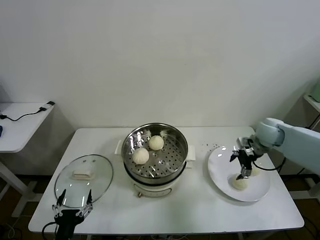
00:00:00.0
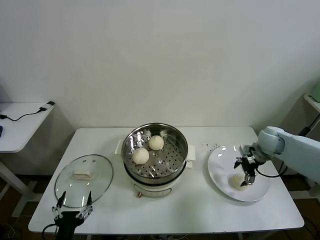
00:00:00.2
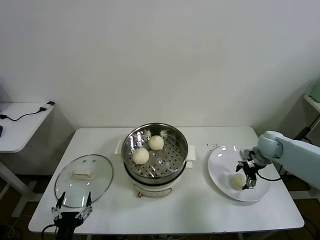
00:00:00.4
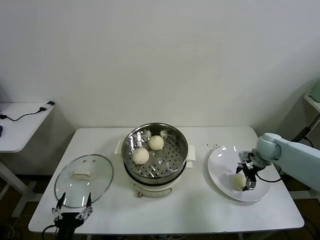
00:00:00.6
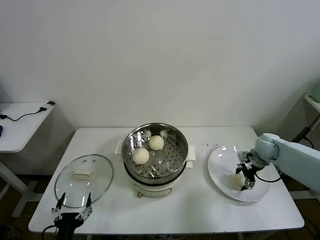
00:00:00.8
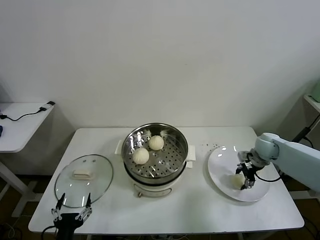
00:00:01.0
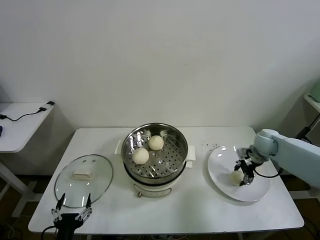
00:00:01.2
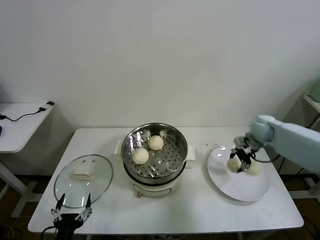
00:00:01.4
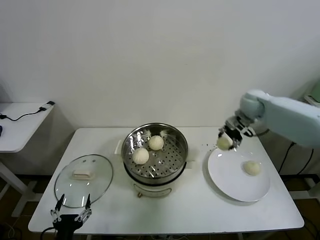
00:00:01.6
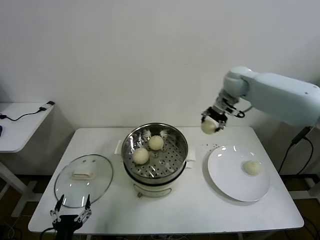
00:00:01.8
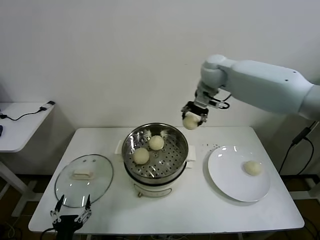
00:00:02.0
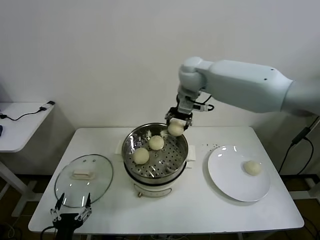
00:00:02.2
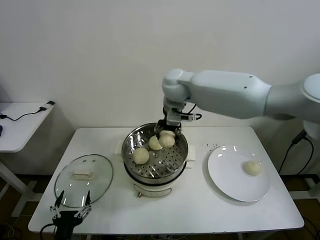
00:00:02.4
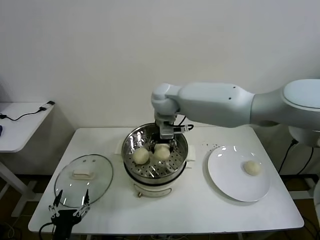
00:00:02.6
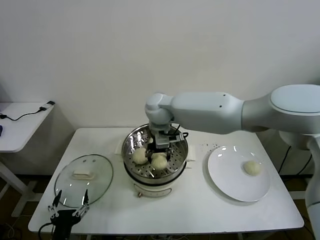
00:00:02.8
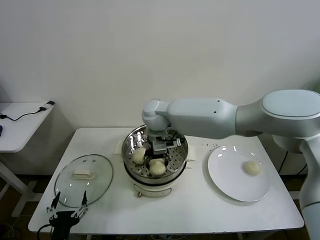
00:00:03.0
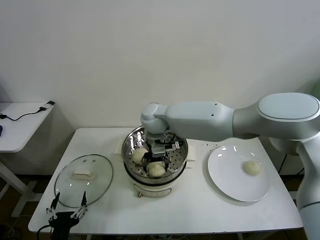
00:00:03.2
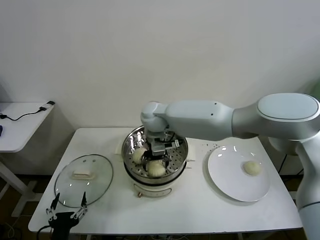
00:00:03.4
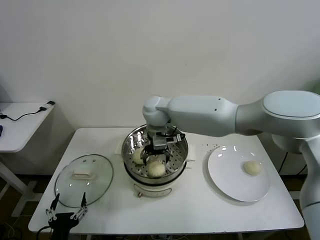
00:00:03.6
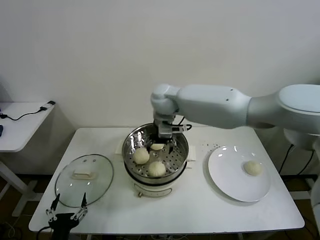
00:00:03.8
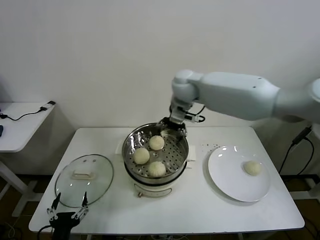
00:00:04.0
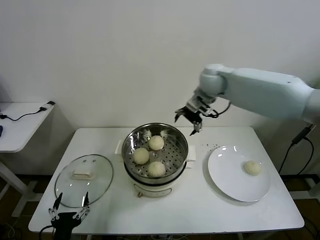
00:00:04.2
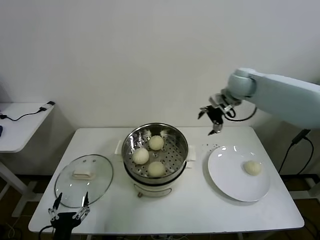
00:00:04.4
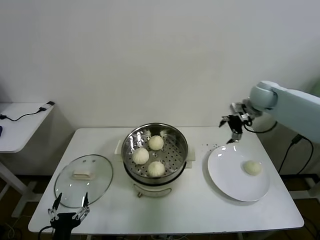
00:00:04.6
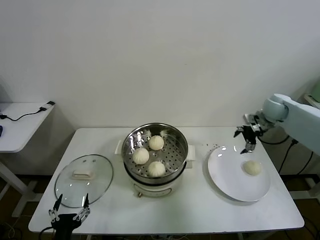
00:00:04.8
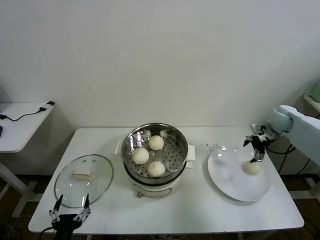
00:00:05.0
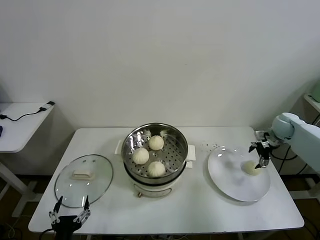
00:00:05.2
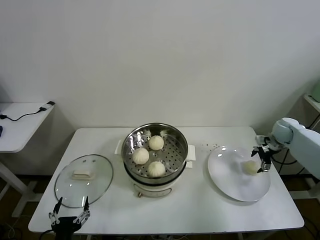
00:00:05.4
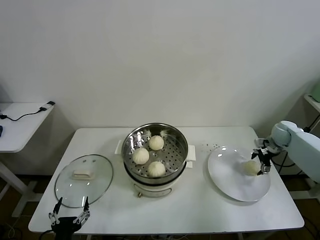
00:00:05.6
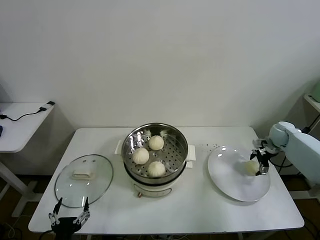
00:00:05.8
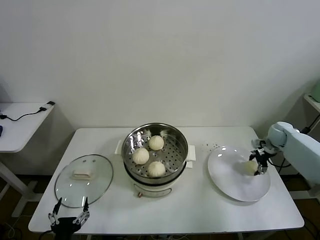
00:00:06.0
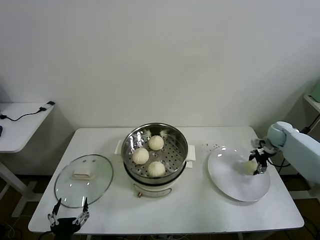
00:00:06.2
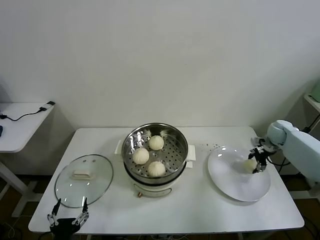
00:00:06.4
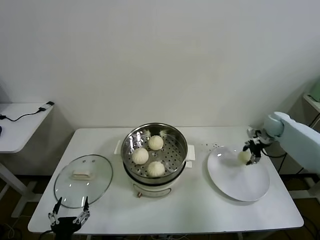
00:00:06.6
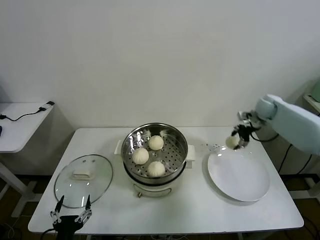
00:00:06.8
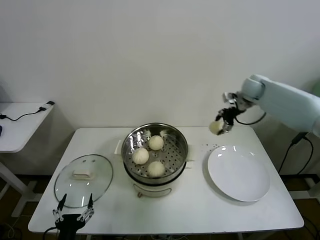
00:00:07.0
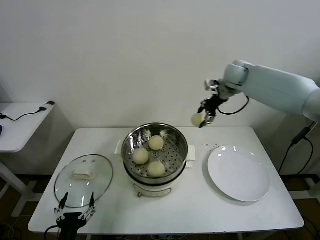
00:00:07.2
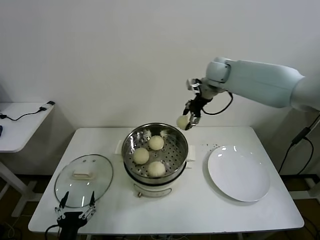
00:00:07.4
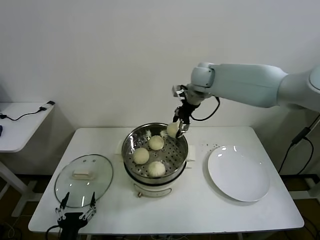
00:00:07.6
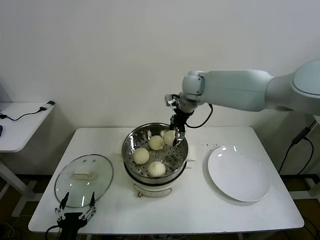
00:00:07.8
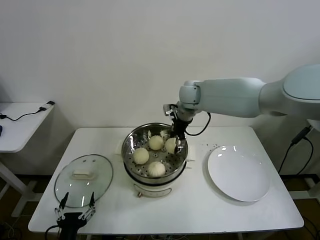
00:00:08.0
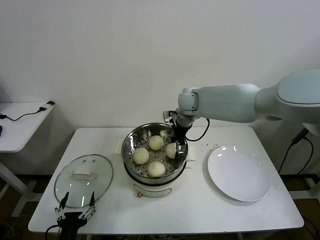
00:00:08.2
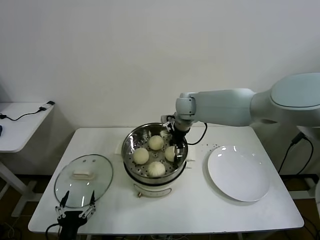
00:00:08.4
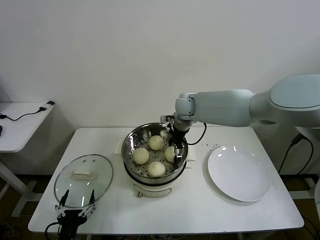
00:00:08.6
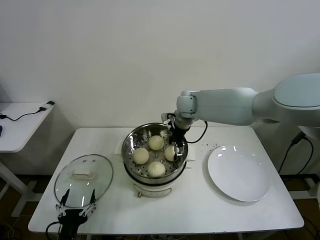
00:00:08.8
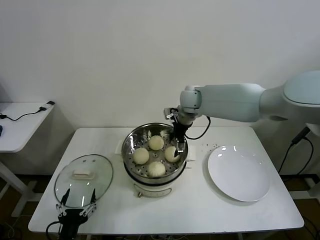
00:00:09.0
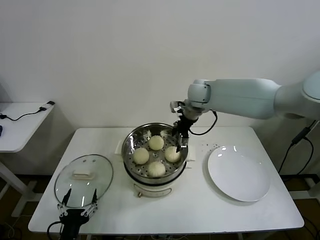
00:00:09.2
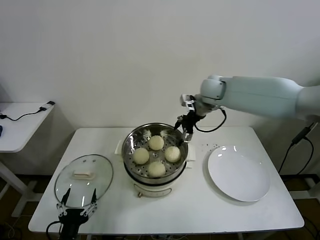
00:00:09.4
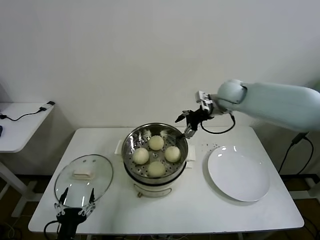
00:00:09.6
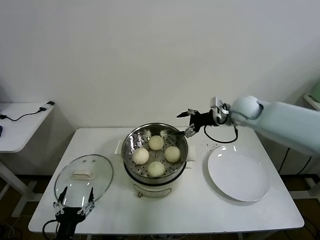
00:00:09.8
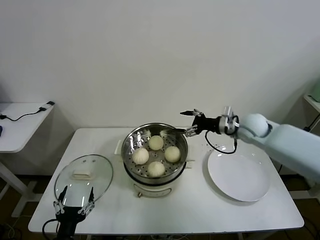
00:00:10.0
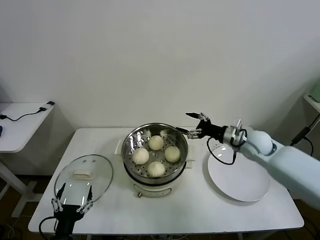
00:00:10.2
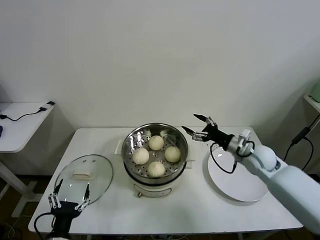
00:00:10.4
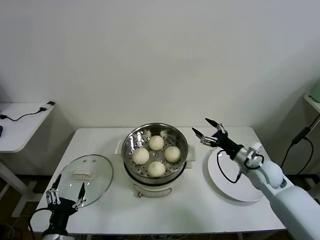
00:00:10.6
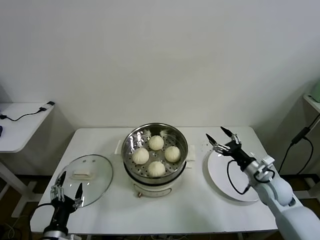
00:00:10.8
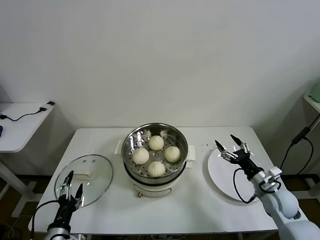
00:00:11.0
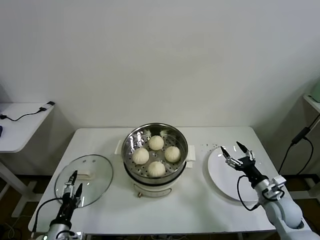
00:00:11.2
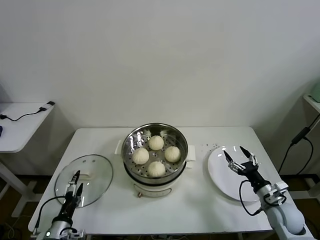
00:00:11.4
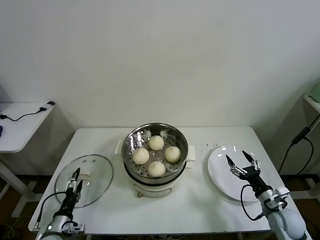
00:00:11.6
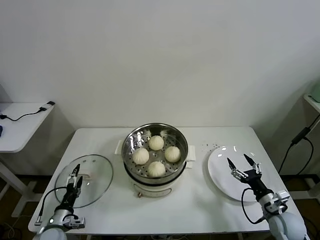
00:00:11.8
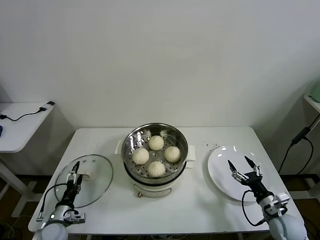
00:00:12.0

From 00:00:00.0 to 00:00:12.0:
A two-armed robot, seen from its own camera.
Task of the whole recording: take steamed baozi put them in steamer then cover it.
Step, from 00:00:00.0 to 00:00:01.2: Grasp the baozi in the plate with right gripper.
Step, from 00:00:01.4 to 00:00:03.4: Place the baozi on the steamer with right gripper.
Step, from 00:00:03.6 to 00:00:06.2: Grasp the baozi in the plate with right gripper.
Step, from 00:00:06.4 to 00:00:09.2: Place the baozi on the steamer with right gripper.
From 00:00:00.0 to 00:00:01.6: The right gripper shifts some 15 cm upward, forward and to the left, and closes its fingers.
From 00:00:01.6 to 00:00:03.0: The right gripper is displaced to the left by approximately 35 cm.
From 00:00:03.0 to 00:00:04.4: The right gripper goes approximately 30 cm to the right, and opens.
From 00:00:04.4 to 00:00:06.0: The right gripper travels downward and to the right by roughly 30 cm, and closes.
From 00:00:06.0 to 00:00:07.6: The right gripper moves to the left and upward, about 40 cm, and closes its fingers.
From 00:00:07.6 to 00:00:09.0: The right gripper is displaced downward by about 5 cm, and opens up.
From 00:00:09.0 to 00:00:10.4: The right gripper is displaced to the right, backward and downward by about 30 cm.
From 00:00:10.4 to 00:00:12.0: The left gripper shifts roughly 20 cm forward, downward and to the left. Meanwhile the right gripper goes roughly 25 cm backward, downward and to the right.

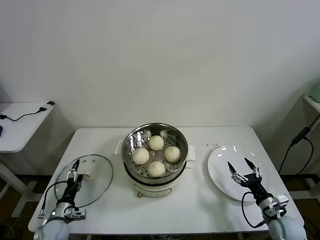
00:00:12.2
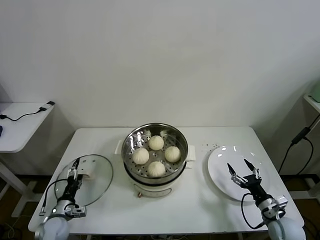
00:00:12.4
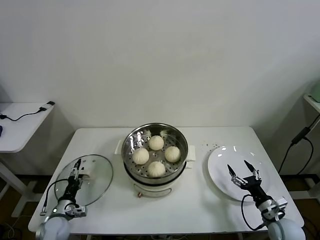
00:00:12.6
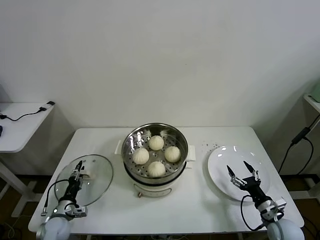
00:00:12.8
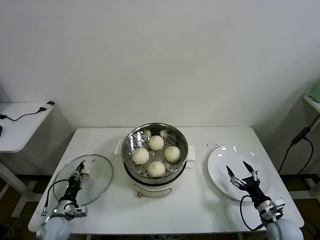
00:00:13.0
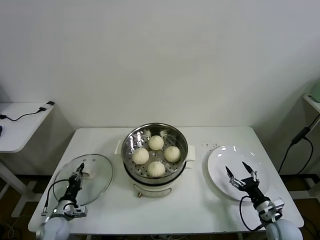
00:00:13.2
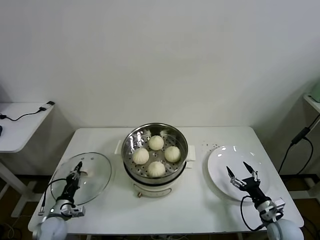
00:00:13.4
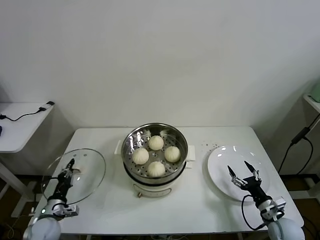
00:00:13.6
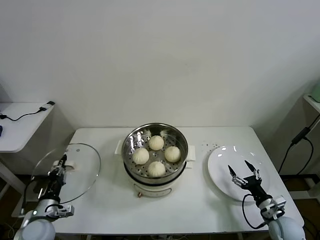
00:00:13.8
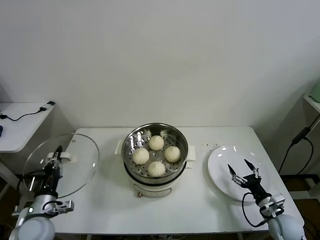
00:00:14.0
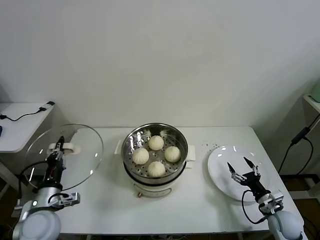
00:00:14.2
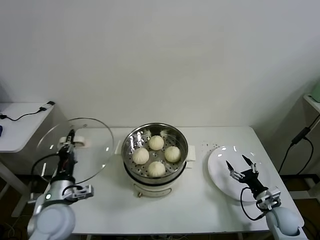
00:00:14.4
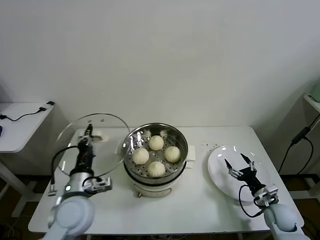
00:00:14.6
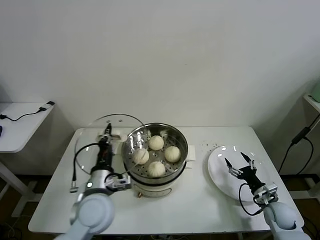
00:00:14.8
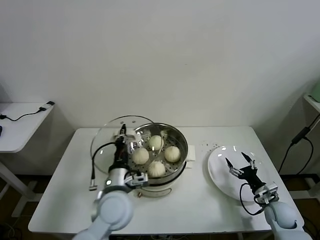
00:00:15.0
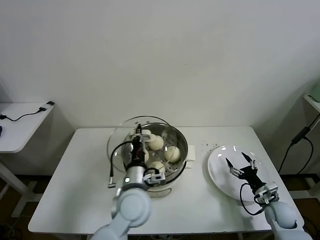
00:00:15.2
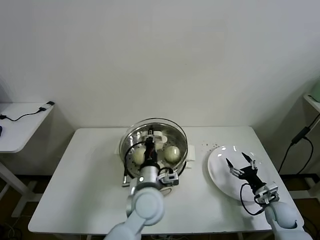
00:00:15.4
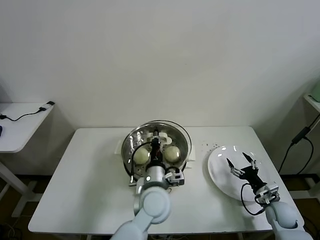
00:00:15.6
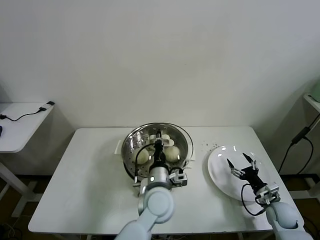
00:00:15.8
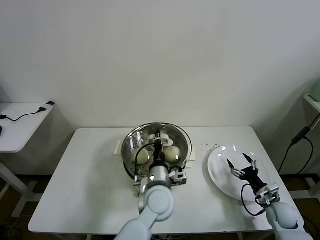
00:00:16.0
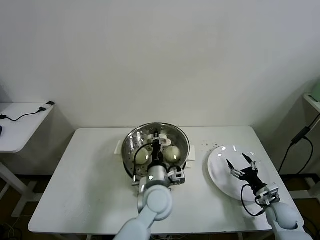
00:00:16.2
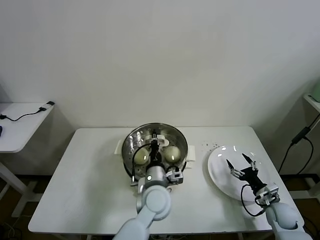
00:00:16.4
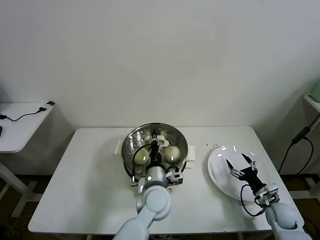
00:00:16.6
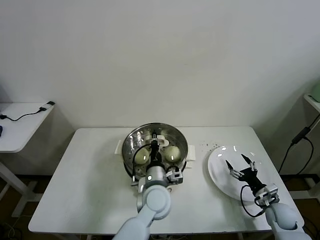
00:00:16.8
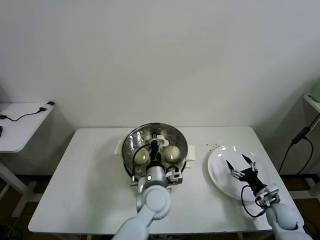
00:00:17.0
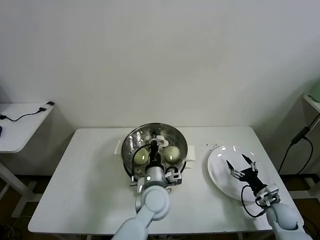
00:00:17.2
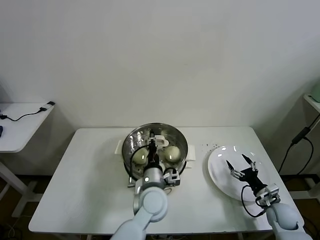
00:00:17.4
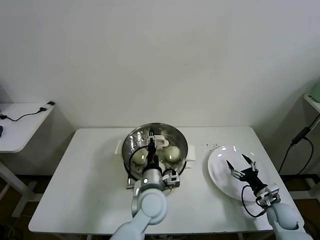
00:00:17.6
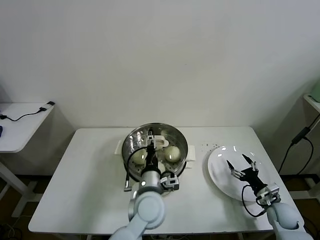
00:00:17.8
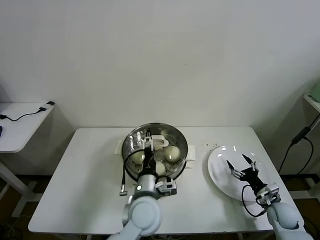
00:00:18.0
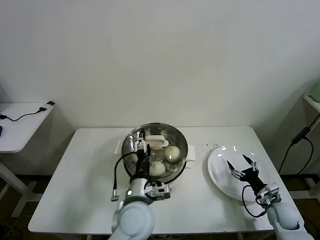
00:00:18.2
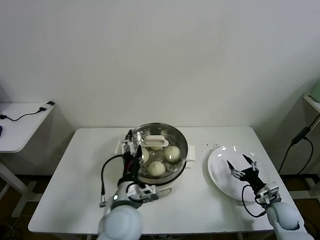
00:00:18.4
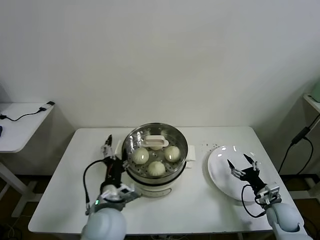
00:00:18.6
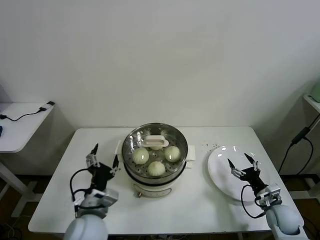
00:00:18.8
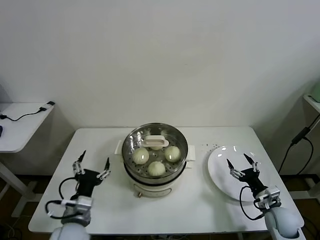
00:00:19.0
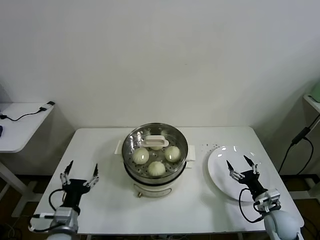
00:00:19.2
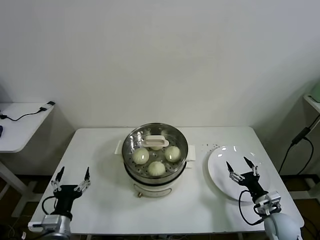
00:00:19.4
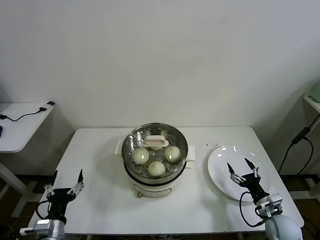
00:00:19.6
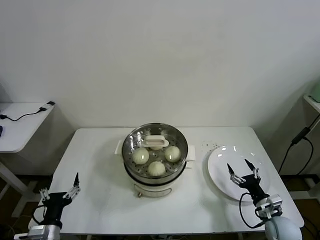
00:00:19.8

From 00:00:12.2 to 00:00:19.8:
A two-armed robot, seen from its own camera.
Task of the whole recording: take steamed baozi put them in steamer then cover it.
Step, from 00:00:13.6 to 00:00:17.8: Place the pot lid on the steamer with left gripper.
From 00:00:12.2 to 00:00:13.8: The left gripper travels upward by roughly 5 cm, and closes.
From 00:00:13.8 to 00:00:15.2: The right gripper heads forward, covering roughly 5 cm, while the left gripper moves to the right and upward, approximately 35 cm.
From 00:00:15.2 to 00:00:16.8: The left gripper goes about 5 cm to the right.
From 00:00:16.8 to 00:00:18.2: The left gripper heads backward, covering some 5 cm, and opens up.
From 00:00:18.2 to 00:00:19.8: The left gripper moves to the left, about 25 cm. Meanwhile the right gripper shifts approximately 5 cm backward.
